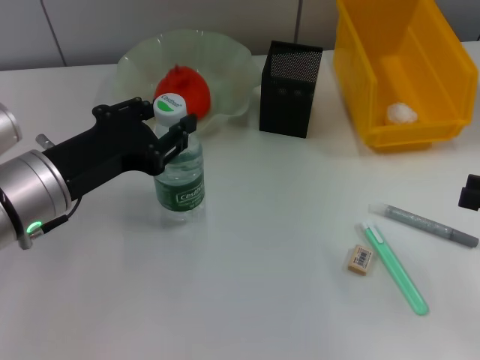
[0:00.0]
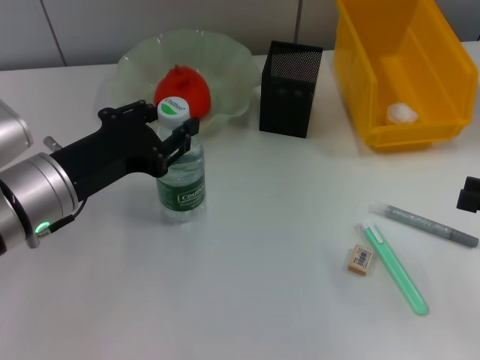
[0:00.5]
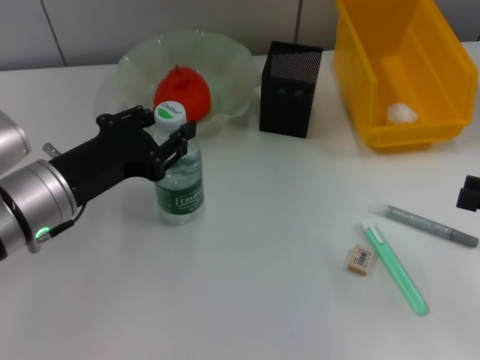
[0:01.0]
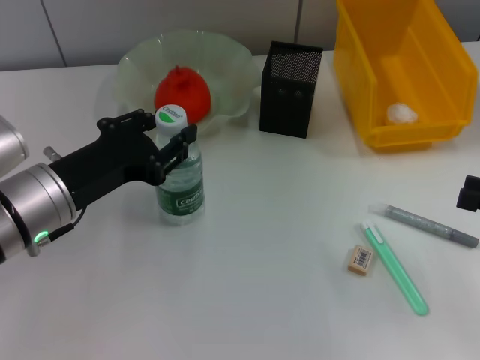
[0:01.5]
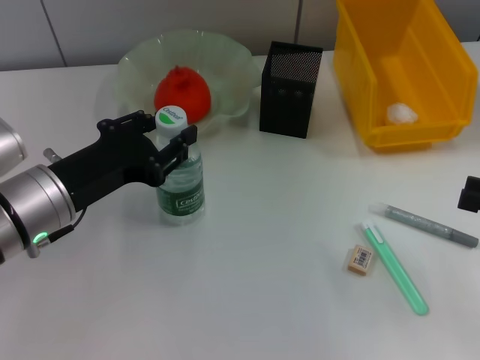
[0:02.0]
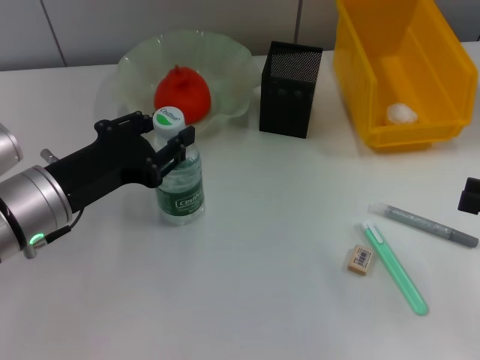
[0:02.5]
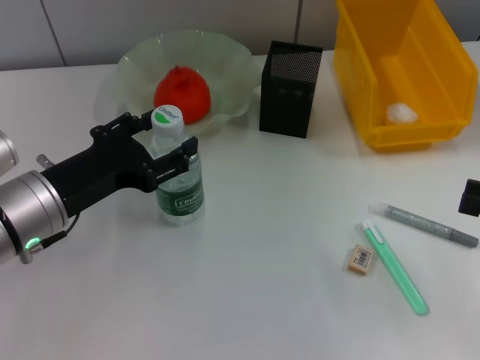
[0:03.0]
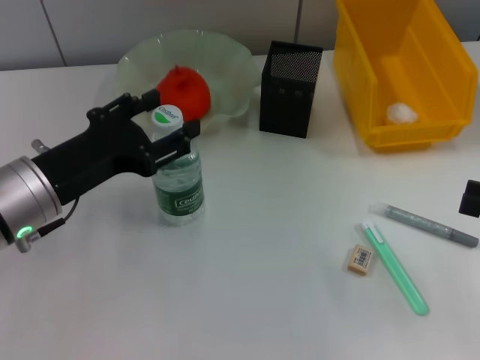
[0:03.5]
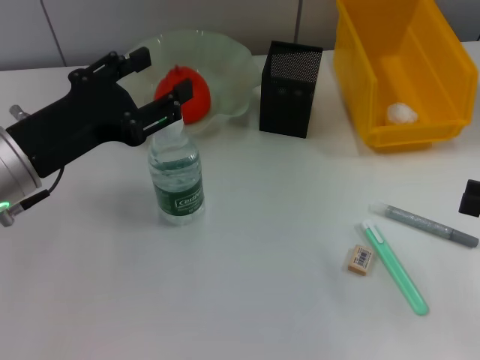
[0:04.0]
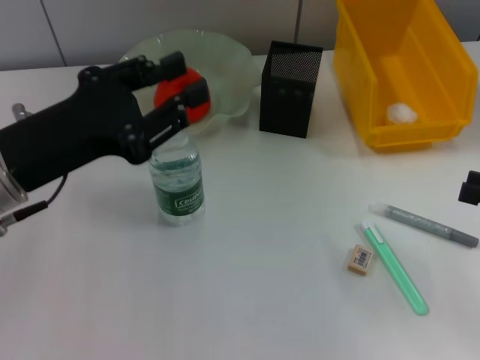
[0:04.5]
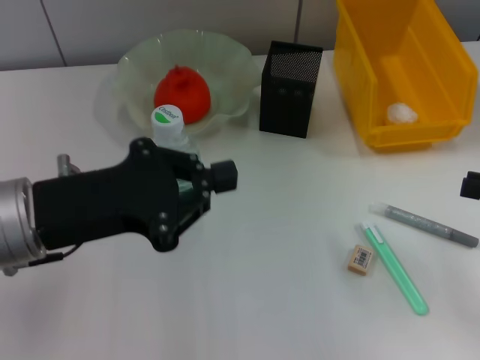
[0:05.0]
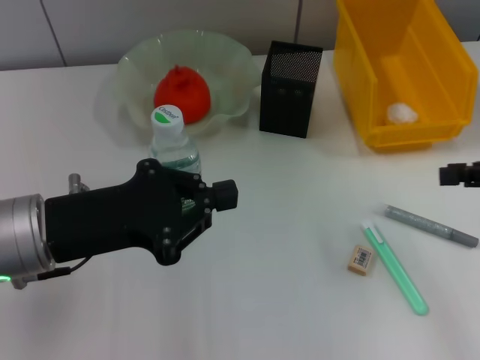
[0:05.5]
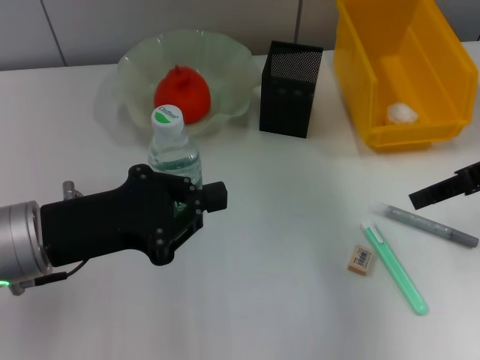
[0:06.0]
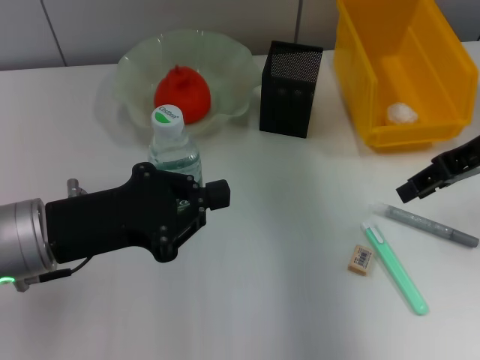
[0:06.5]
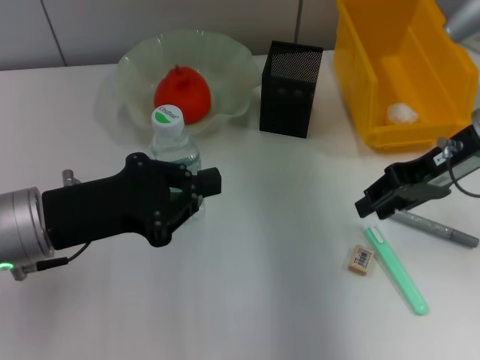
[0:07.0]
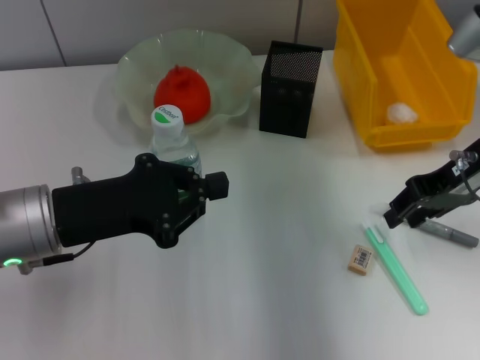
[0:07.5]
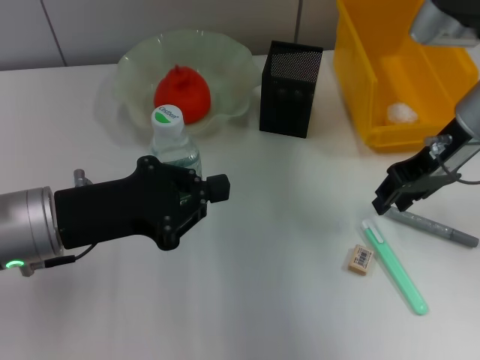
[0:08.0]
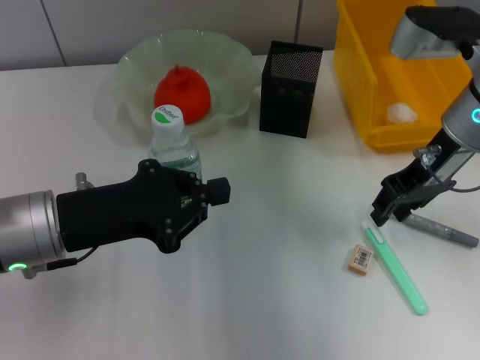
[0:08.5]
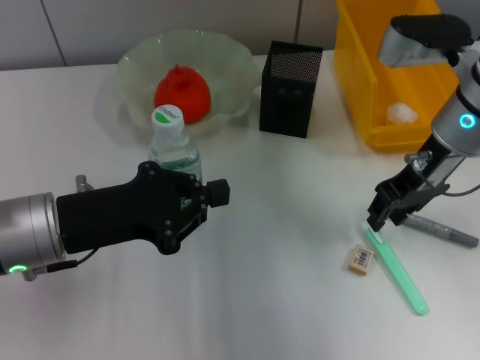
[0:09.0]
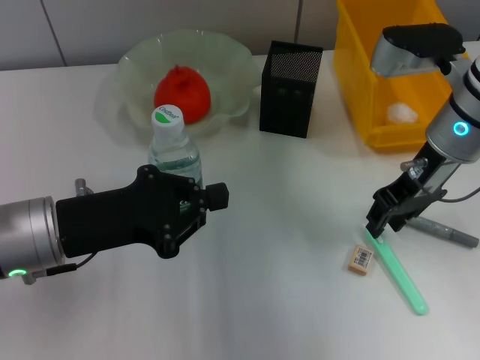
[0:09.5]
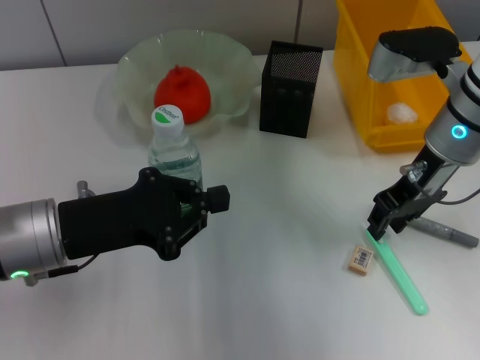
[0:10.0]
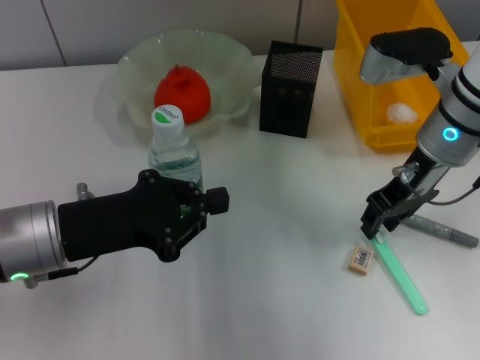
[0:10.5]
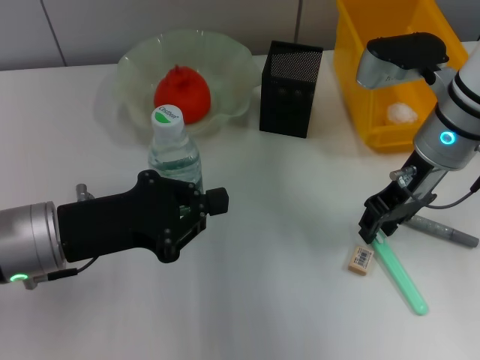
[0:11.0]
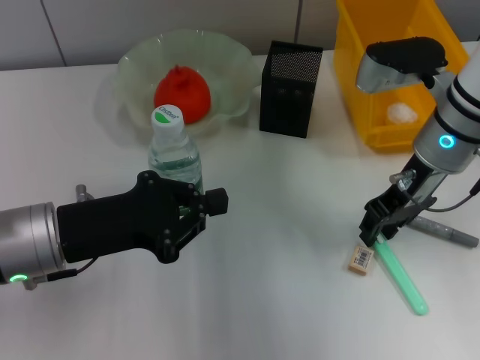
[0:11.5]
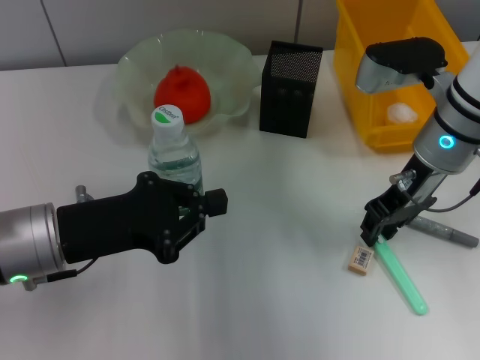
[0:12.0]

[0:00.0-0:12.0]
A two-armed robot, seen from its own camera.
Step, 0:00.0 to 0:02.5: Place the water bottle on the table with the left hand.
0:00.0 to 0:04.0: The grippers move only a little.
0:04.0 to 0:06.0: The right gripper heads forward, upward and to the left, covering about 15 cm. Meanwhile the left gripper closes.
0:06.0 to 0:08.0: The right gripper heads to the left, covering about 10 cm.
0:08.0 to 0:10.0: There are only small adjustments of the grippers.
0:10.0 to 0:12.0: Both grippers stay about where they are.

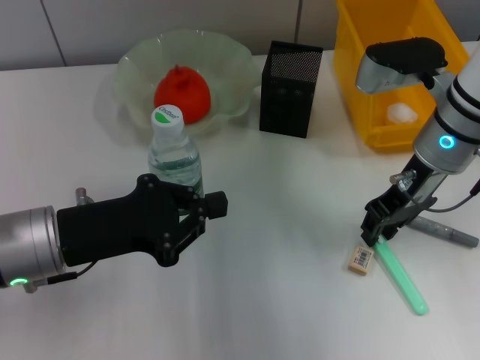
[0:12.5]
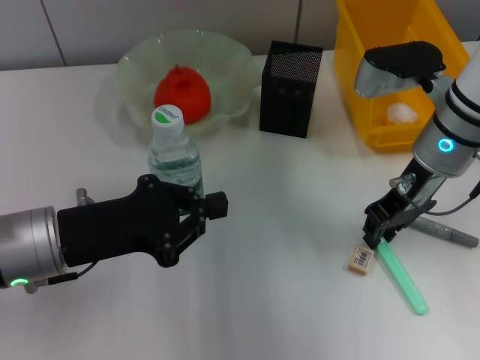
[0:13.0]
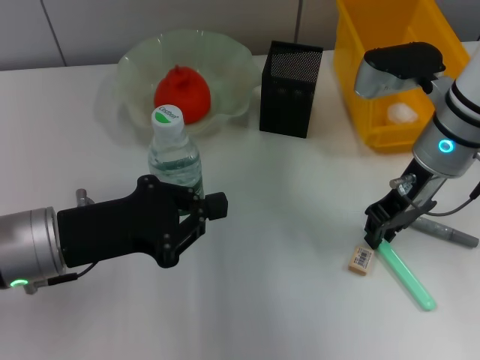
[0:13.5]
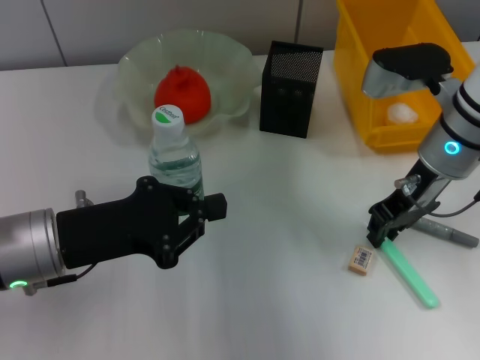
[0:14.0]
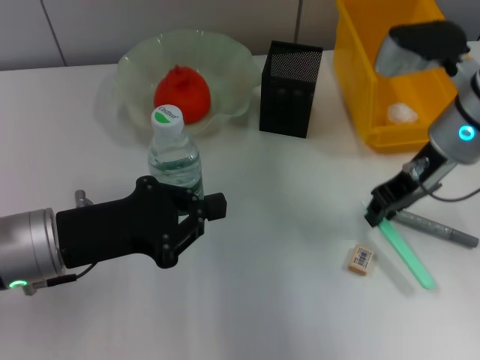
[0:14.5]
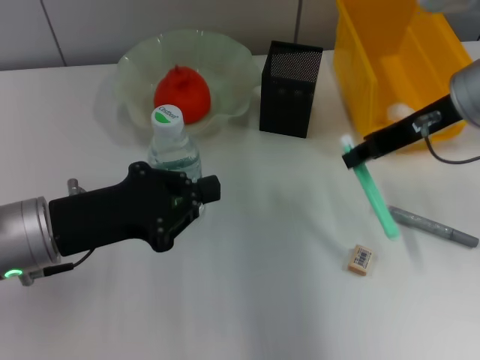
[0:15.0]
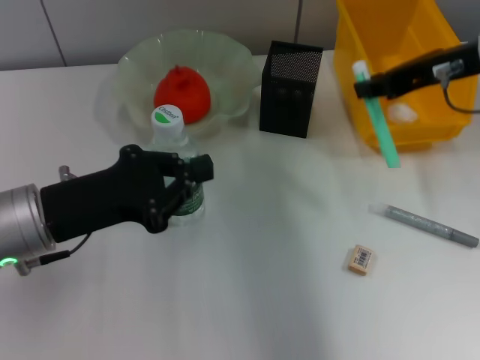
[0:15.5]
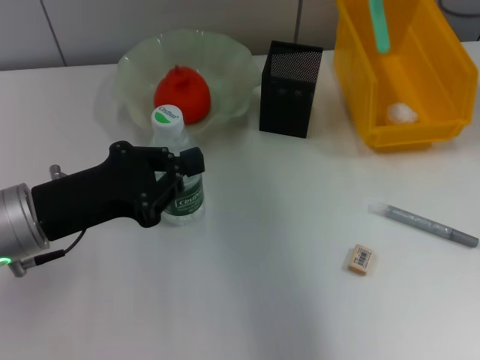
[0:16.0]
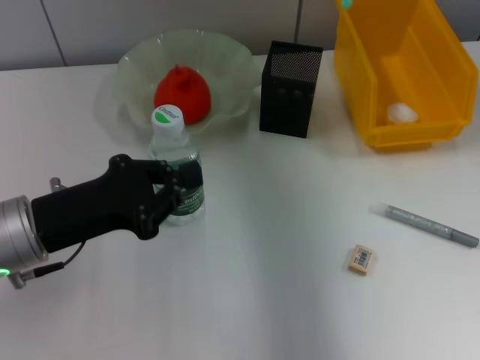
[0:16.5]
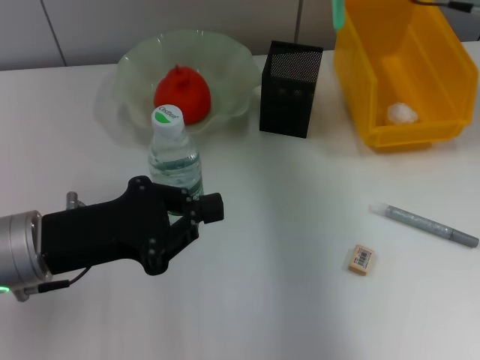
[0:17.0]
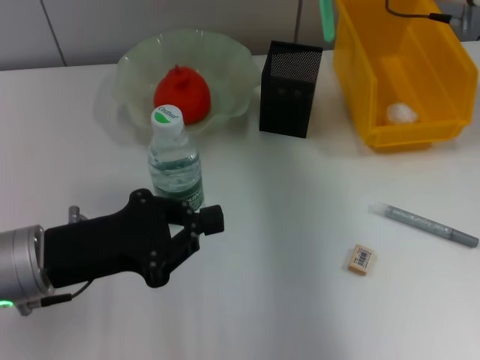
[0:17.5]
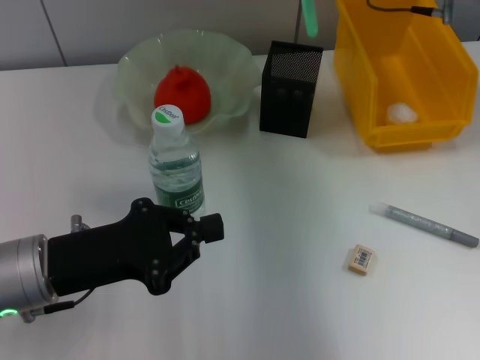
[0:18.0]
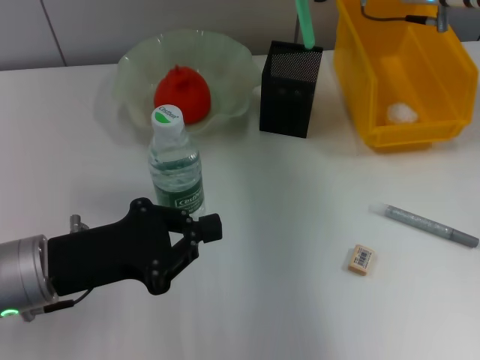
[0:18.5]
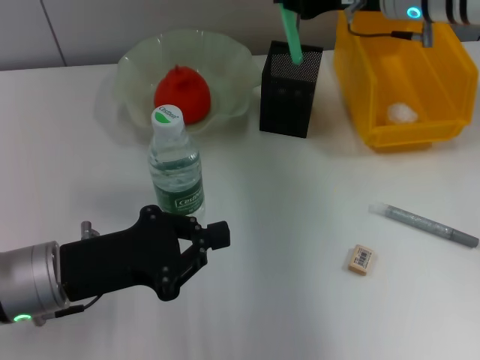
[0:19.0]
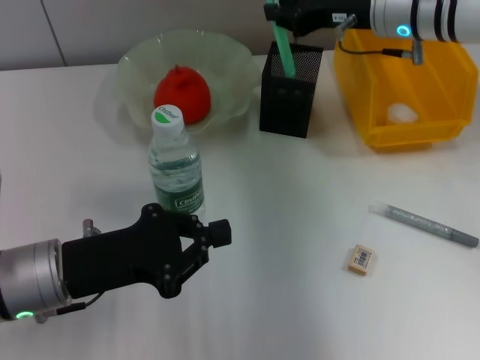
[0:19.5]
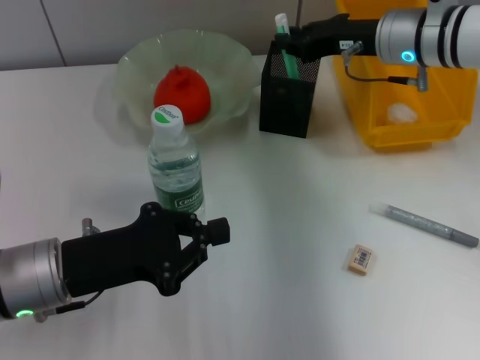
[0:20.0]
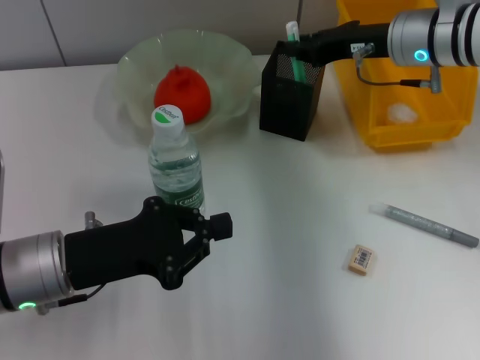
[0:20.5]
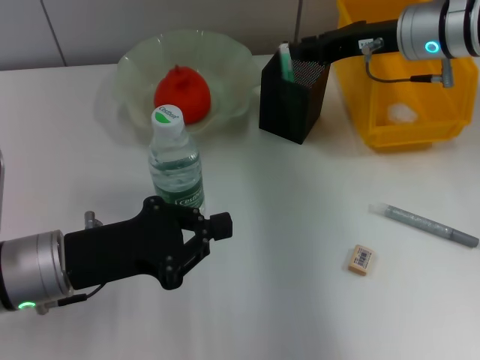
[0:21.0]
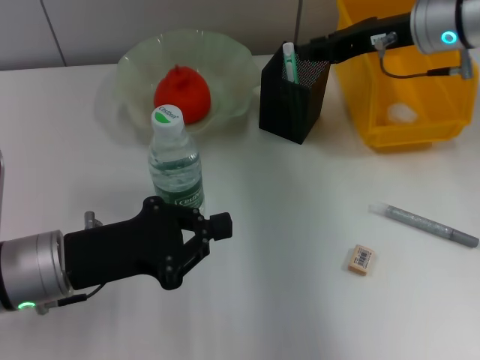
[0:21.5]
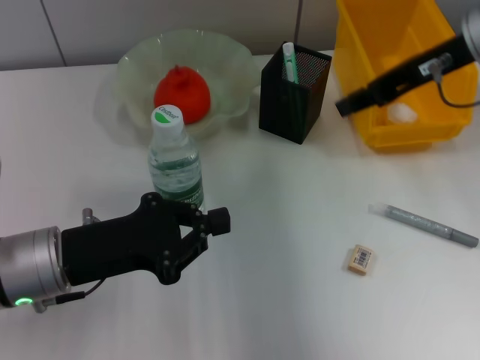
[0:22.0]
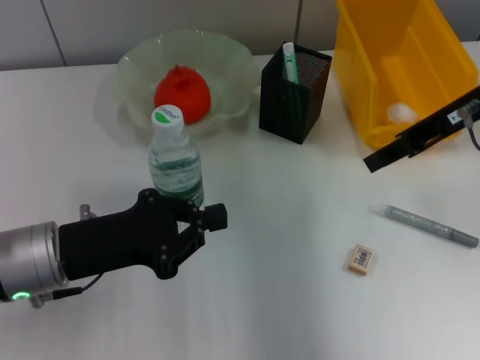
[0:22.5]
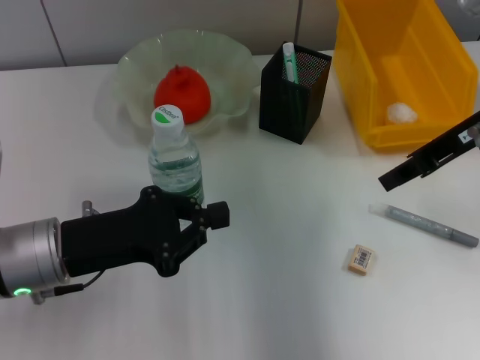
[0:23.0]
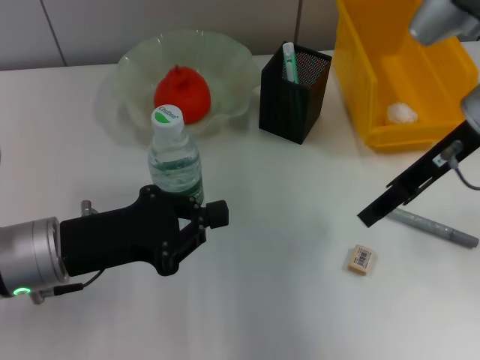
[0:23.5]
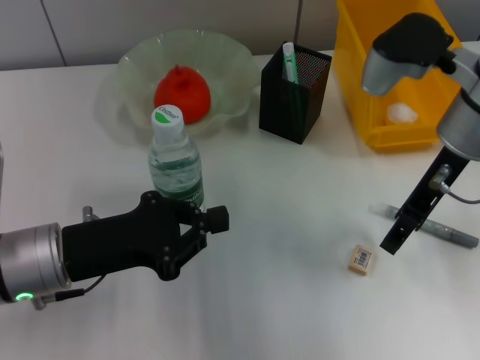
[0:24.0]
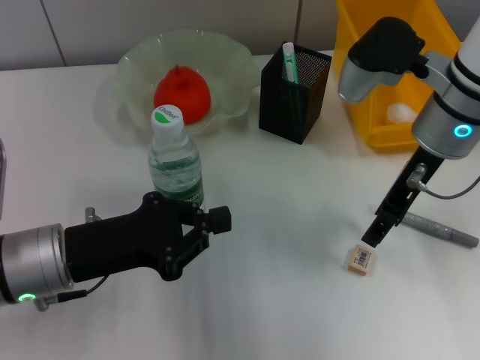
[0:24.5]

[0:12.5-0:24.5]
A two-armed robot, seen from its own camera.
Step, 0:14.0 to 0:21.0: Place the blue utility knife into the pen holder with the right hand.
0:12.5 to 0:14.5: The grippers stay close to where they were, moving slightly.
0:14.5 to 0:16.5: The right gripper travels upward and forward by about 10 cm.
0:16.5 to 0:18.5: The right gripper goes about 5 cm downward.
0:18.5 to 0:20.5: The right gripper changes place by about 5 cm.
0:20.5 to 0:22.5: The right gripper is displaced backward and upward by about 10 cm.
0:22.5 to 0:24.5: The right gripper moves to the left, about 5 cm, and opens up.

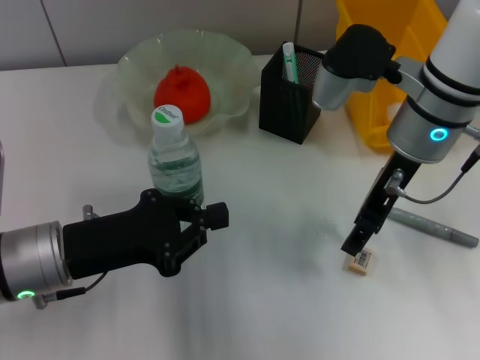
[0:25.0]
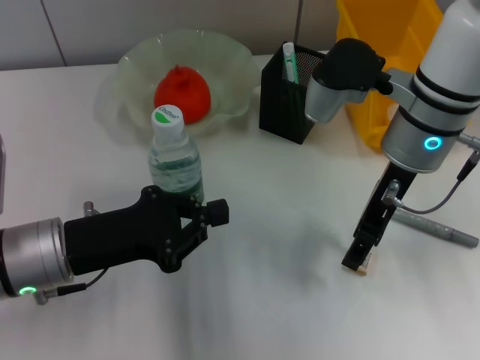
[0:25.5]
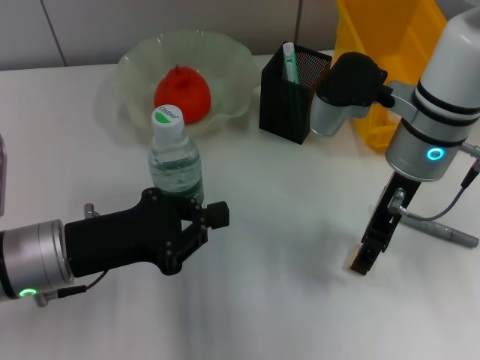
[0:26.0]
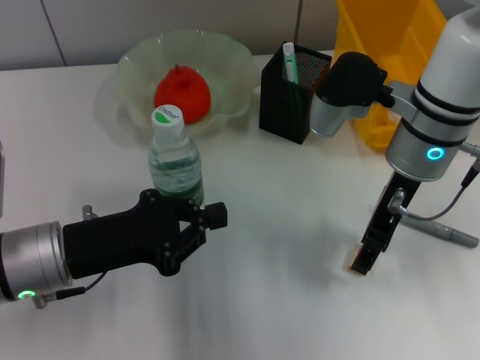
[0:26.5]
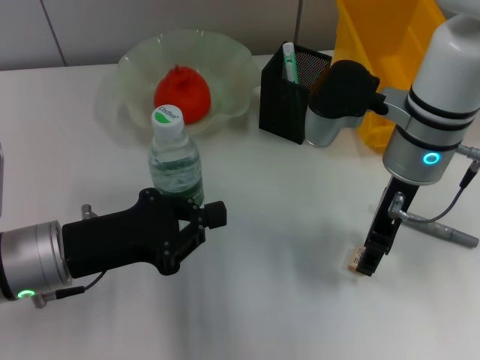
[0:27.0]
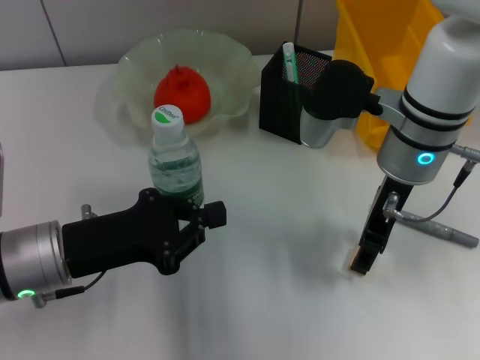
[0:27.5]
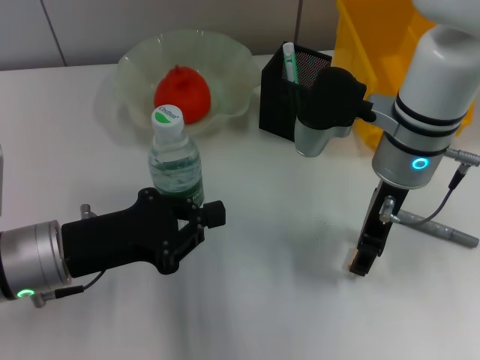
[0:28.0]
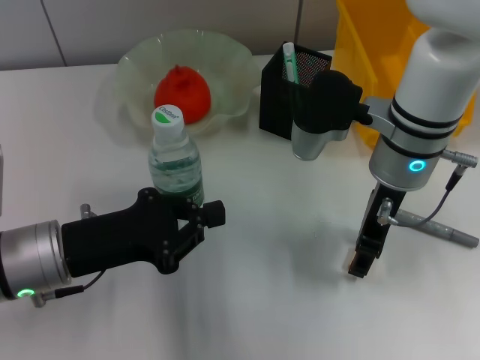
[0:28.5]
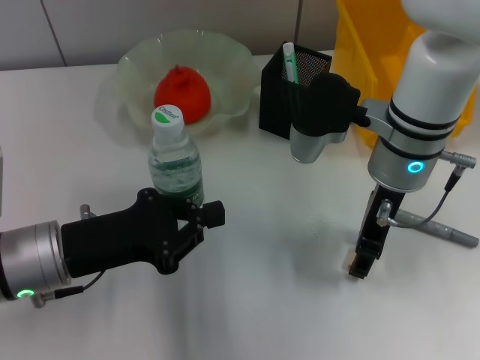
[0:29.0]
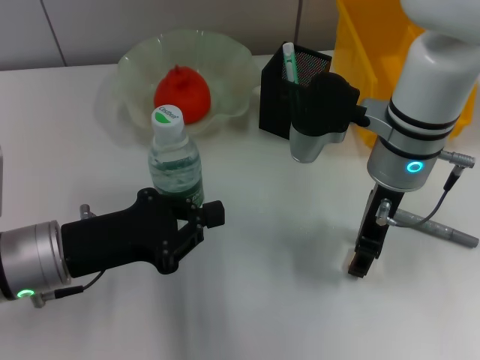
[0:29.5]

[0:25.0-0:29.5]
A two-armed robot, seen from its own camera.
0:25.0 to 0:29.5: The grippers make only small movements.
